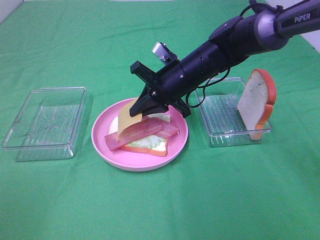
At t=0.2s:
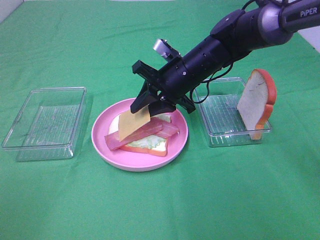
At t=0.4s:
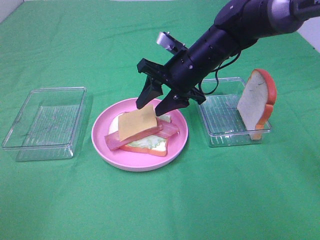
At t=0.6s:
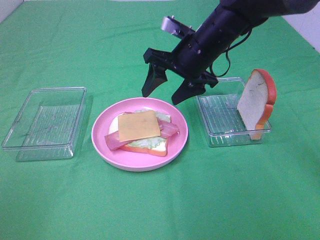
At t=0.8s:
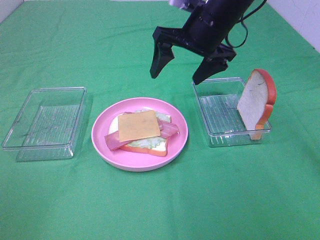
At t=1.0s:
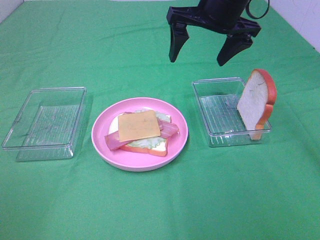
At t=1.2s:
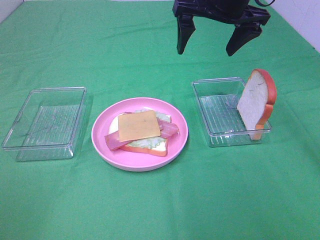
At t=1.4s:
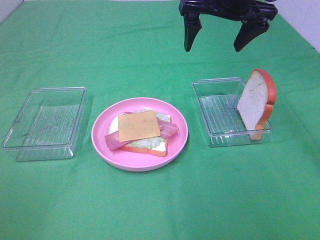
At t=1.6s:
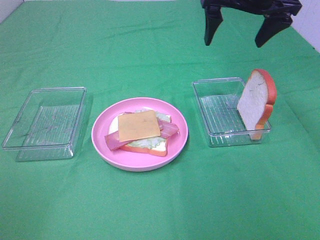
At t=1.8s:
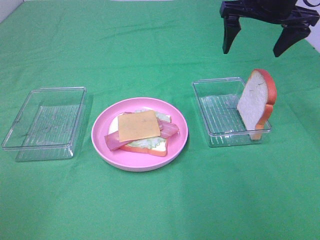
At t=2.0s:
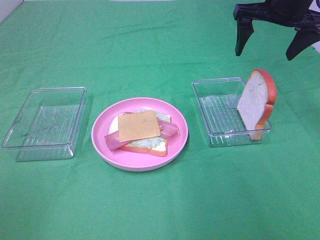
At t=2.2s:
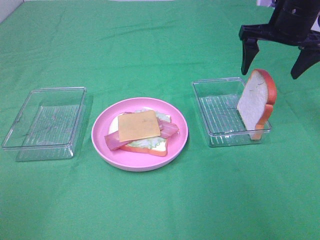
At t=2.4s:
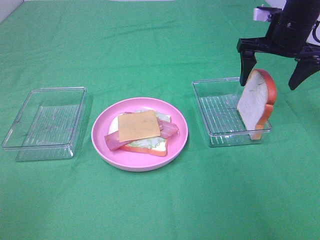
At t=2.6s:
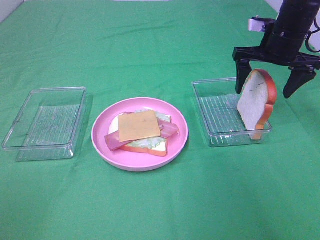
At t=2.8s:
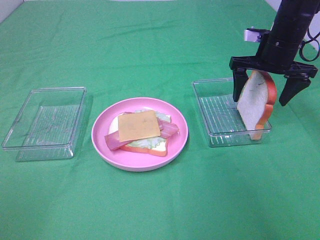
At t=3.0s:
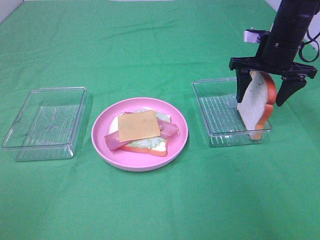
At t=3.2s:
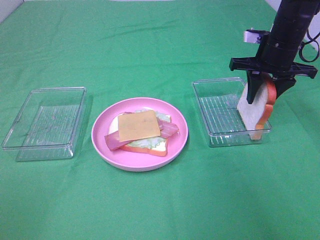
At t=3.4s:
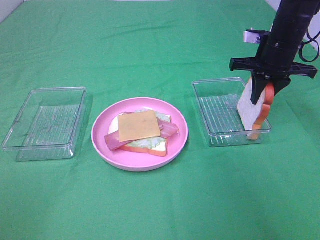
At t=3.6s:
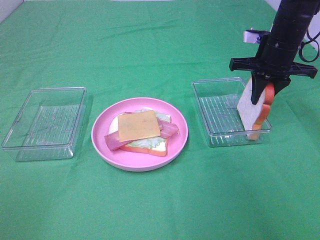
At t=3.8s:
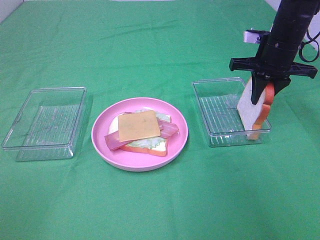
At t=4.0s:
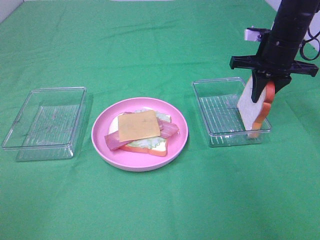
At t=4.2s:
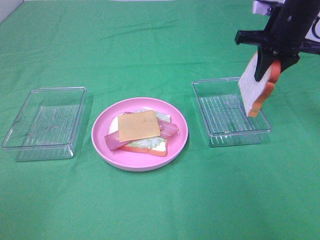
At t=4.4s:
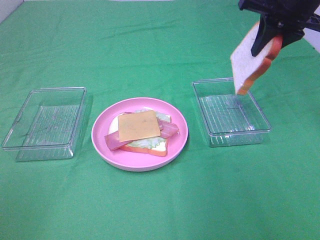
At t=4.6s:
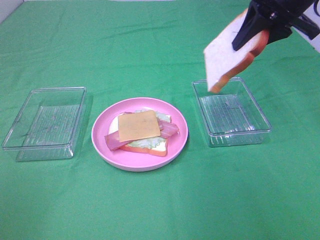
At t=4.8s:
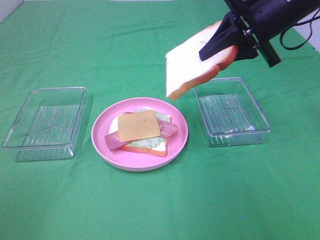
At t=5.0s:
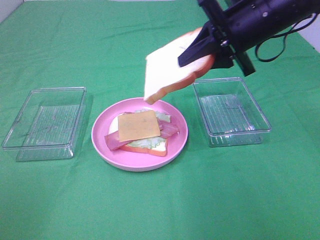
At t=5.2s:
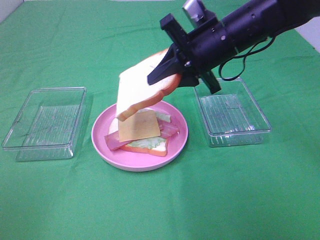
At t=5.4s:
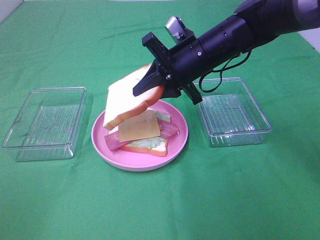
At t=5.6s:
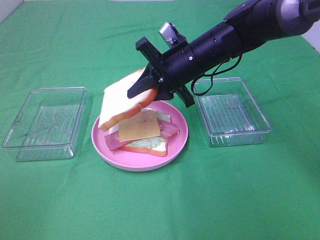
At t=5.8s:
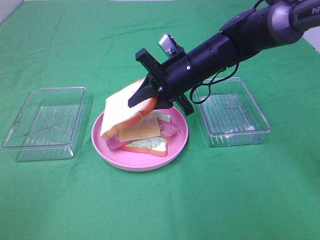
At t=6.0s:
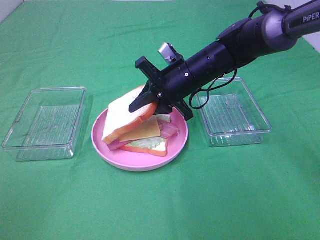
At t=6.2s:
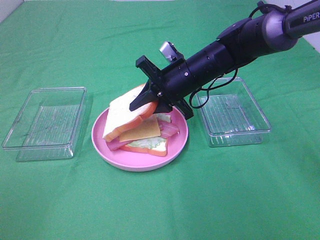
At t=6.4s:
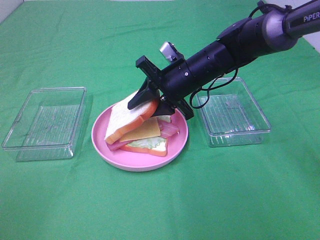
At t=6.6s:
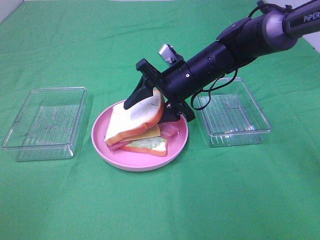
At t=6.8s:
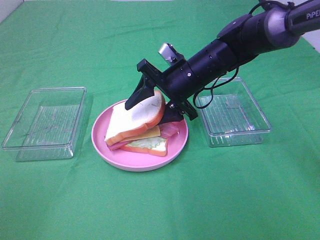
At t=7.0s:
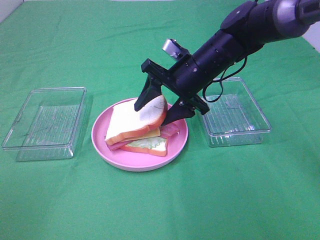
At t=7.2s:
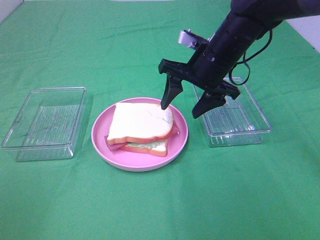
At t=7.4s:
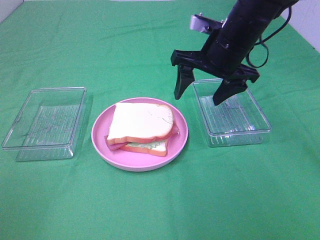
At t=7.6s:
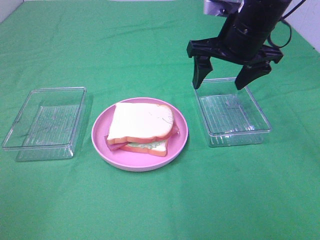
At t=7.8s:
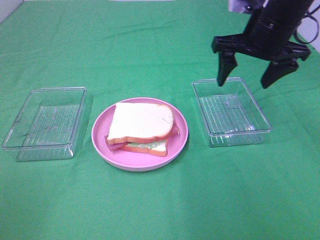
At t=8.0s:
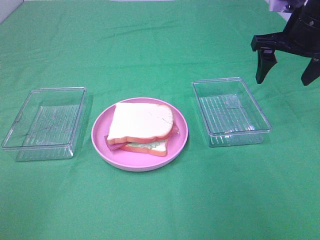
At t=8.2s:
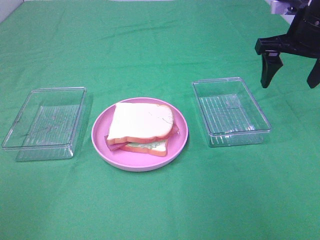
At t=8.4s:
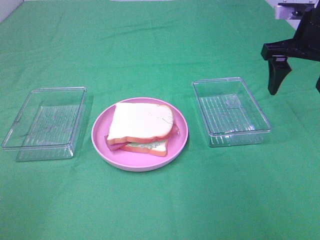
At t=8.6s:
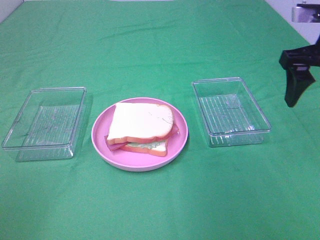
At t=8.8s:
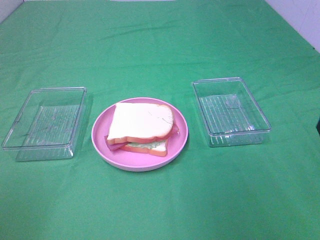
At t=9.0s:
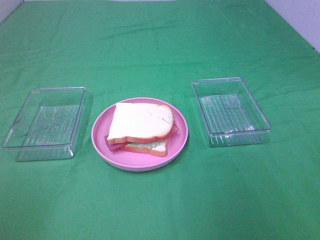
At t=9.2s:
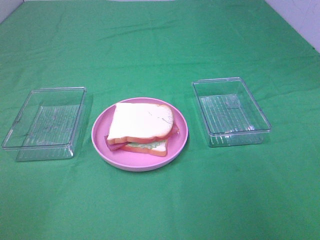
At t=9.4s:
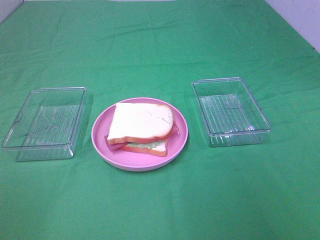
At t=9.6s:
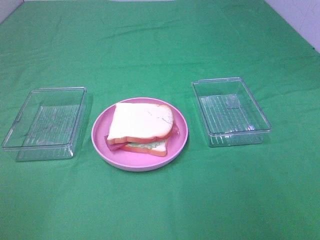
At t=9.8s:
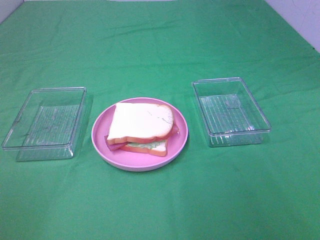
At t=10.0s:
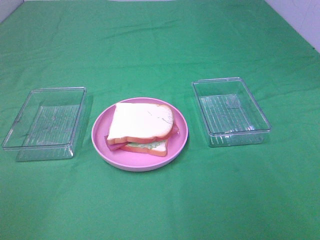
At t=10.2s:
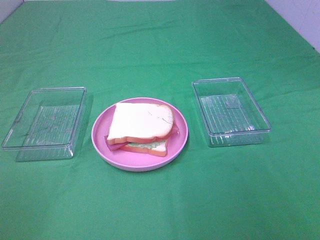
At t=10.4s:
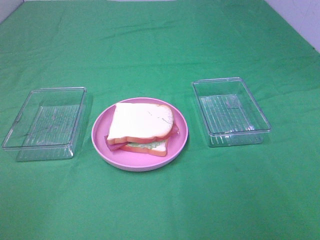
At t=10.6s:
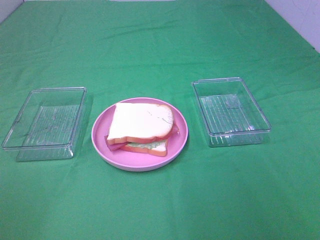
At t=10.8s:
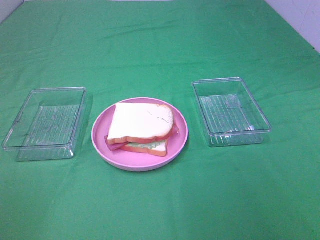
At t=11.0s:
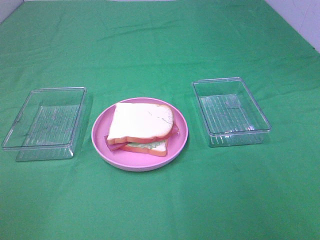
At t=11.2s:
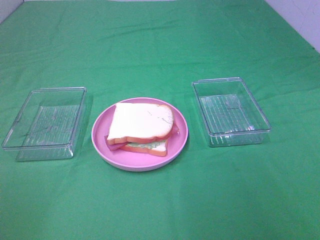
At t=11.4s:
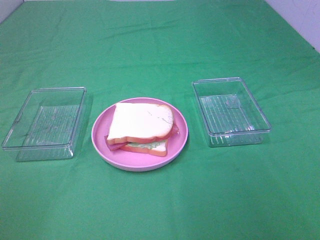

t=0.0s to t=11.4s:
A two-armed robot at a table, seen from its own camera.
Task of the whole recording: Make sandwiches.
Step, t=0.6s to t=3.6s: Right hand:grab the bread slice.
Step, t=3.8s to t=7.2s: Right hand:place the bread slice on the cheese slice.
t=0.0s to t=1.4s: The right gripper is displaced upward by roughly 15 cm, and opens up.
t=1.4s to t=2.8s: The right gripper travels downward and to the right by about 15 cm.
t=2.8s to t=4.2s: The right gripper shifts roughly 5 cm upward, and closes up.
t=4.2s to t=5.6s: The right gripper moves to the left and downward, approximately 20 cm.
t=5.6s to t=7.2s: The right gripper opens its fingers.
t=7.2s to t=8.6s: The right gripper heads to the right, upward and backward, covering roughly 20 cm.
t=8.6s to t=10.0s: The right gripper goes approximately 30 cm backward.

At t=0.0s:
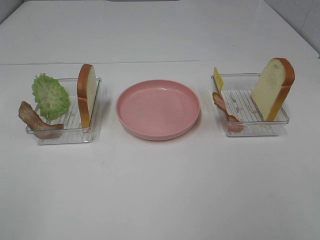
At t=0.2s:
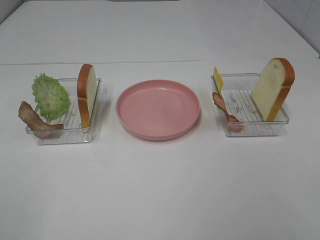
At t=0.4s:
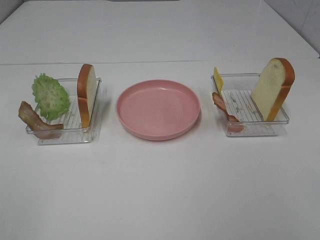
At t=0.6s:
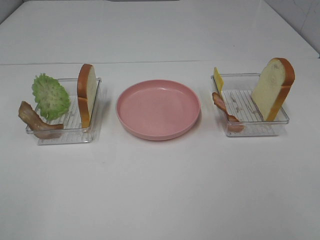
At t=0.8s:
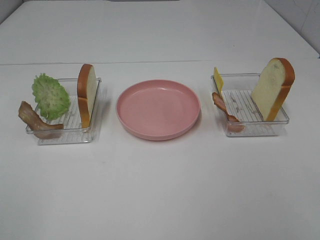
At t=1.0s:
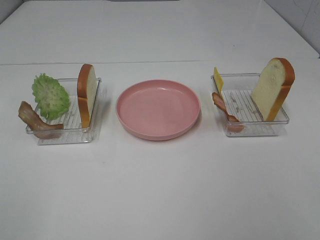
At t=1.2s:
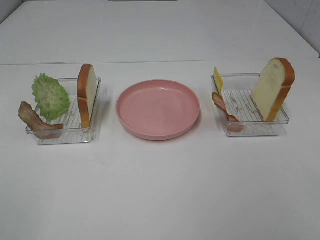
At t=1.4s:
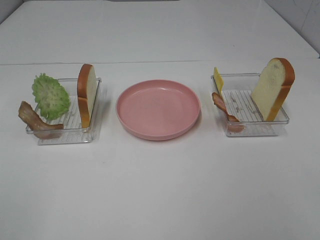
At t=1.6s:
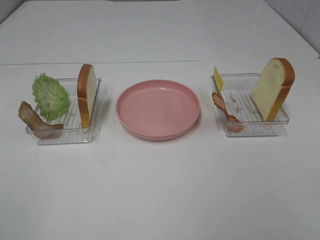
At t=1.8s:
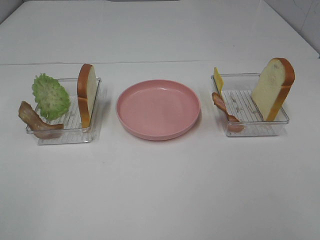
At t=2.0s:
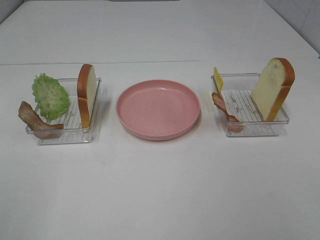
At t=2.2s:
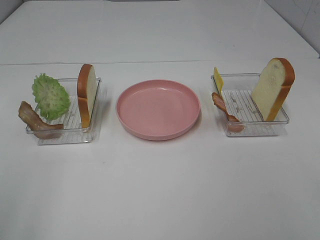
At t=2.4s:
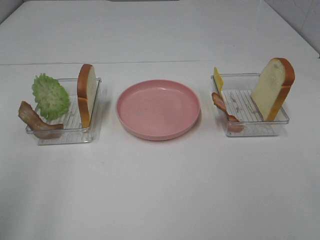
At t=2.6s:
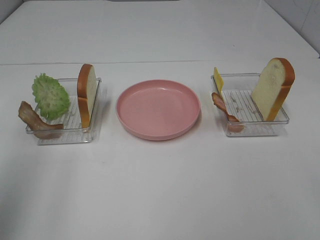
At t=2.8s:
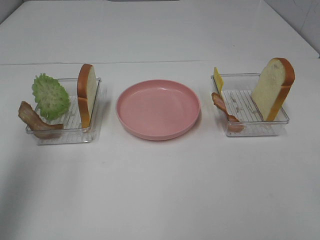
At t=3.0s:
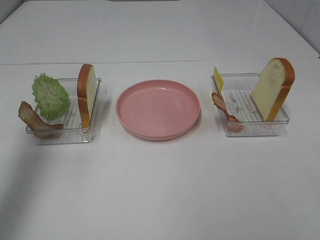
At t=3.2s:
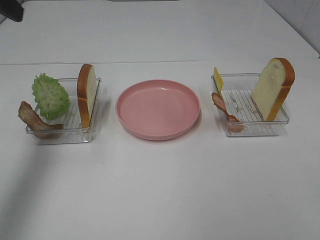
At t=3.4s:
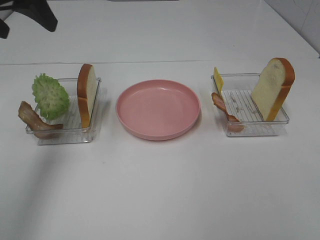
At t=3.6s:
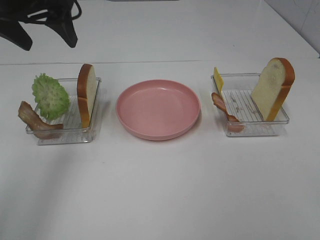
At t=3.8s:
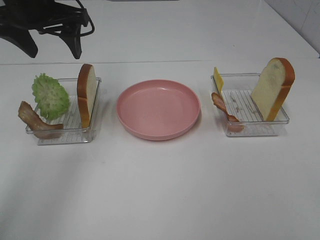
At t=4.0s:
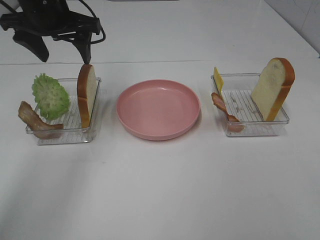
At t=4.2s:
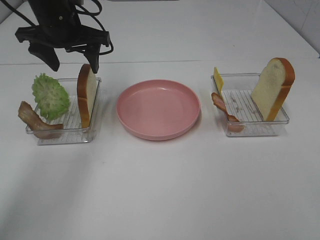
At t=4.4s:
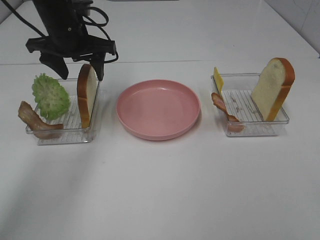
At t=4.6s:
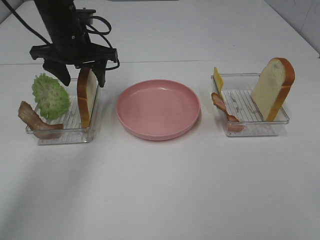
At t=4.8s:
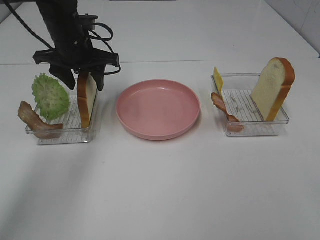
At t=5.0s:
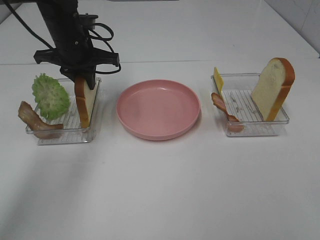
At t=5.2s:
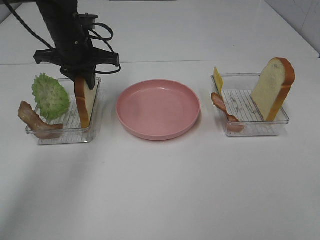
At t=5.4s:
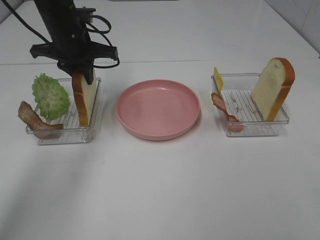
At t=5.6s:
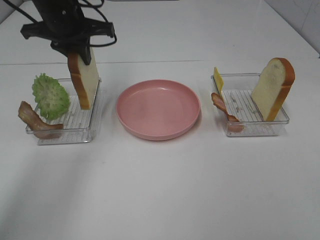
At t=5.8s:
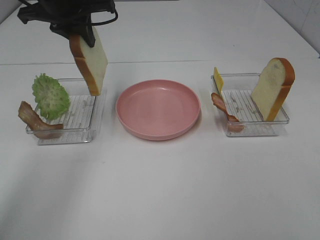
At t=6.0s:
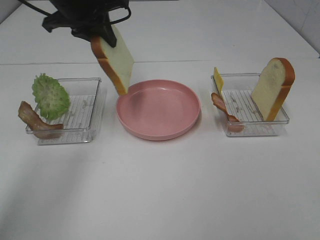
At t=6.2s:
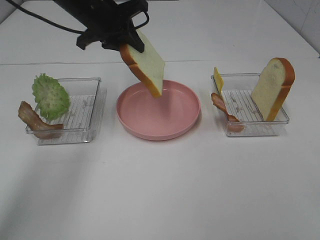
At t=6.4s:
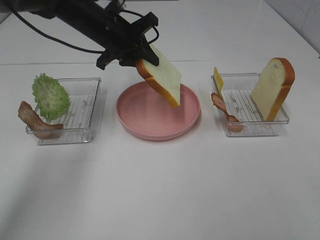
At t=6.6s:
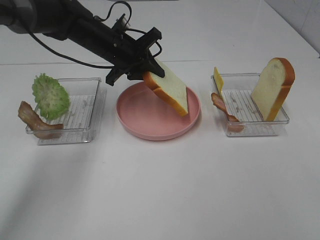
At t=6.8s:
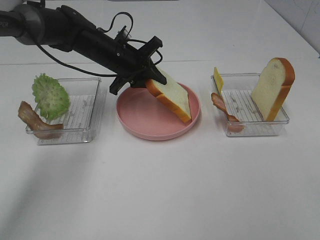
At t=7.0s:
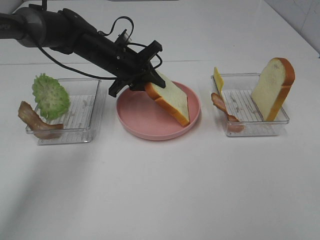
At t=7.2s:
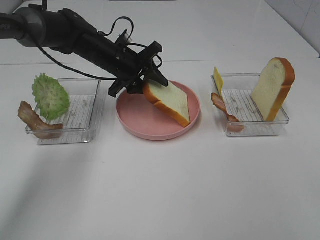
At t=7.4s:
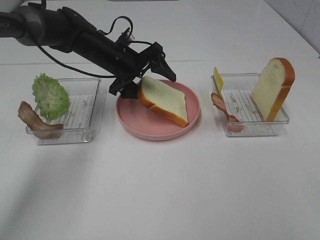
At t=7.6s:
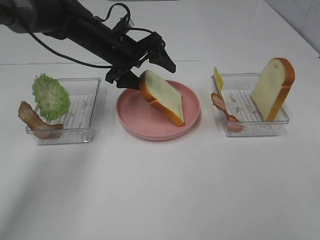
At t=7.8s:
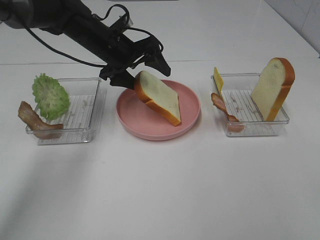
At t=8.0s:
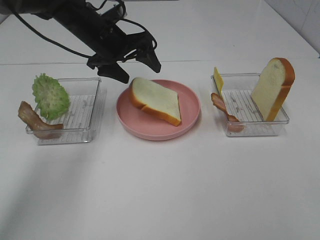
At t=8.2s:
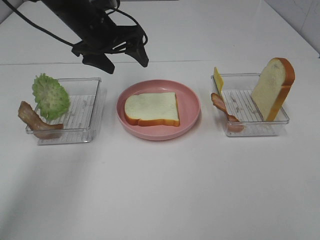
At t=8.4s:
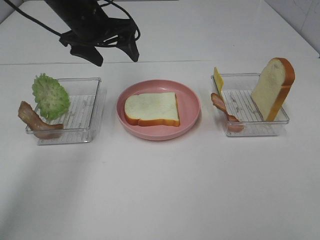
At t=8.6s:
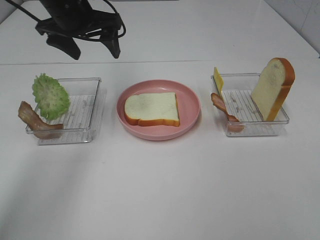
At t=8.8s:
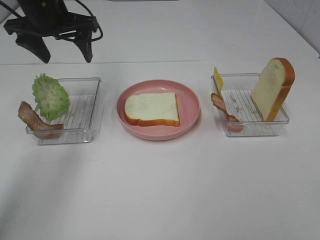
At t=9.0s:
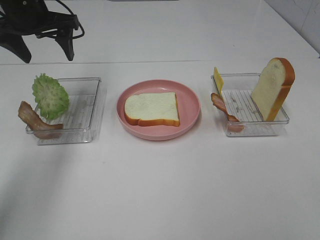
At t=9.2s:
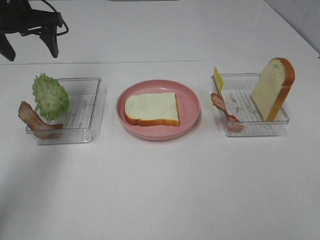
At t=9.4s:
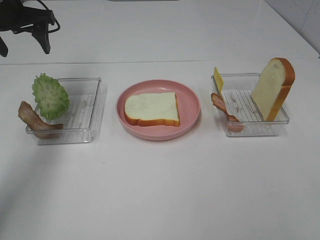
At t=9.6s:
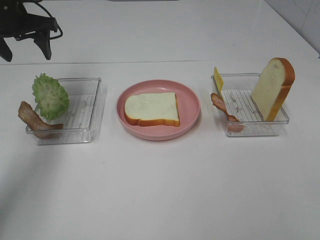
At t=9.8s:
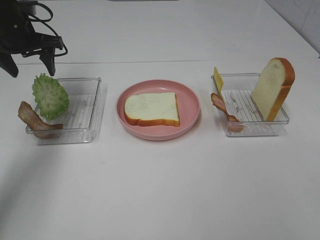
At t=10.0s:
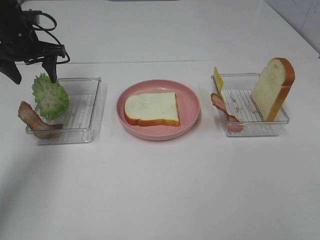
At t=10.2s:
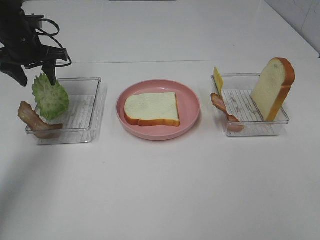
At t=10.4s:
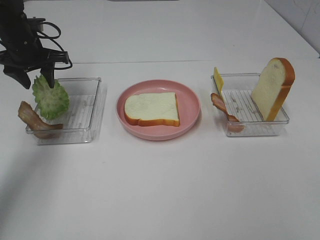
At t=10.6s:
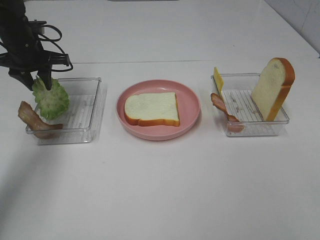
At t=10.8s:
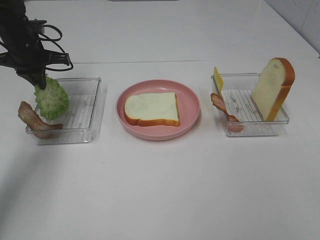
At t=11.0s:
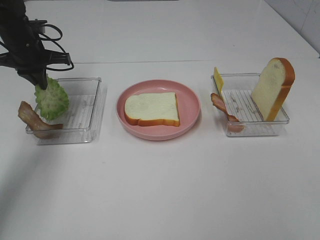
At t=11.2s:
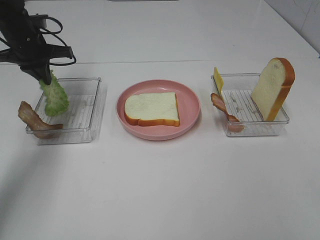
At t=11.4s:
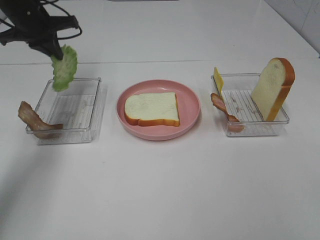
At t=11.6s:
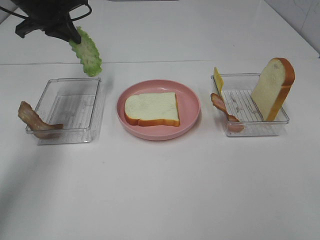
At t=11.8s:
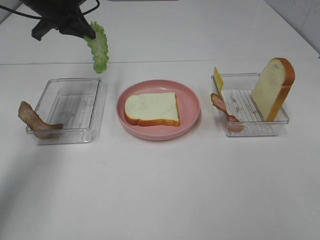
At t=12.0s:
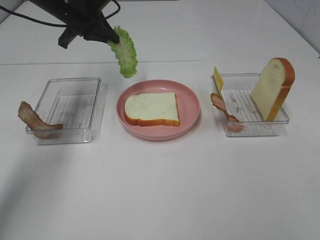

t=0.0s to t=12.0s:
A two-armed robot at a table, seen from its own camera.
Task of the whole recording: Make sandwiches.
Step, t=0.0s to t=5.2s: Left hand:grab the bread slice.
Step, t=5.4s to t=8.2s: Left hand:place the bread slice on the plate.
Step, t=8.4s to t=10.8s: Left hand:grab the lettuce slice.
t=0.0s to t=1.6s: Both grippers stay put.
t=1.6s to t=3.0s: The left gripper moves forward, roughly 25 cm.
t=3.0s to t=4.4s: The left gripper shifts about 25 cm forward, downward and to the right.
t=4.4s to t=6.0s: The left gripper moves upward, some 5 cm, and closes up.
t=6.0s to t=7.6s: The left gripper heads downward, covering roughly 10 cm, and opens up.
t=7.6s to t=9.0s: The left gripper is displaced to the left and upward by about 15 cm.
t=9.0s to t=10.4s: The left gripper shifts approximately 10 cm downward.
t=10.4s to t=12.0s: The left gripper is displaced to the right and upward by about 10 cm, and closes its fingers.
